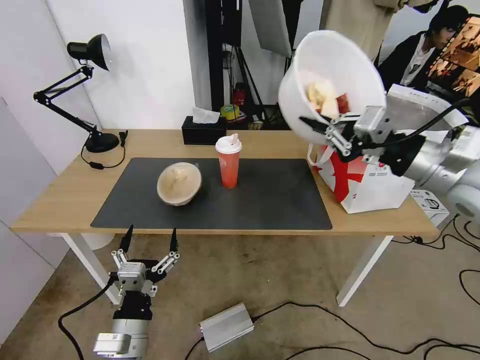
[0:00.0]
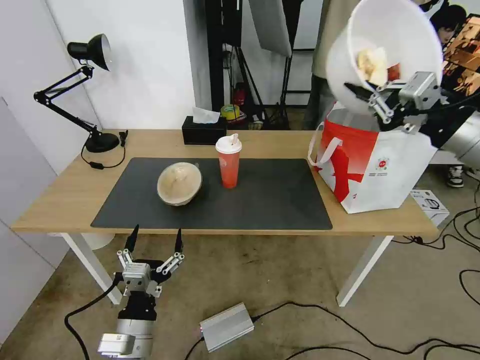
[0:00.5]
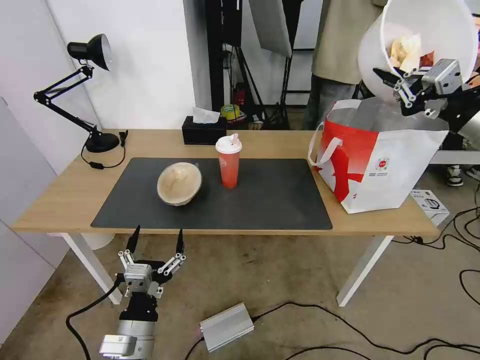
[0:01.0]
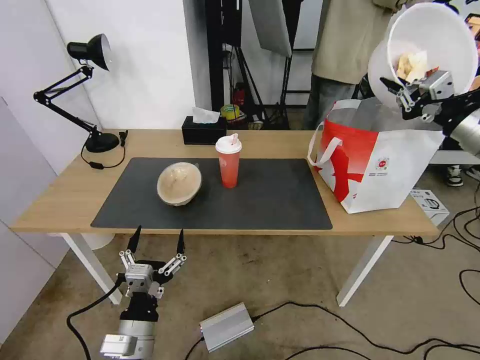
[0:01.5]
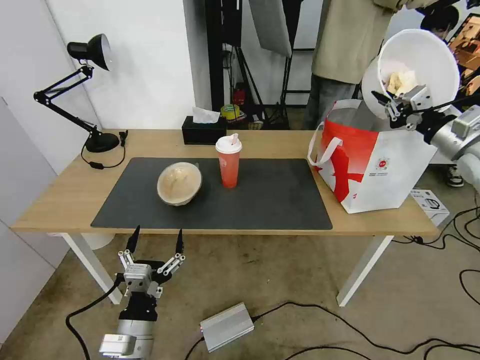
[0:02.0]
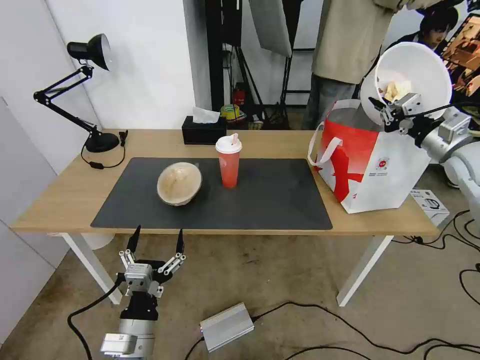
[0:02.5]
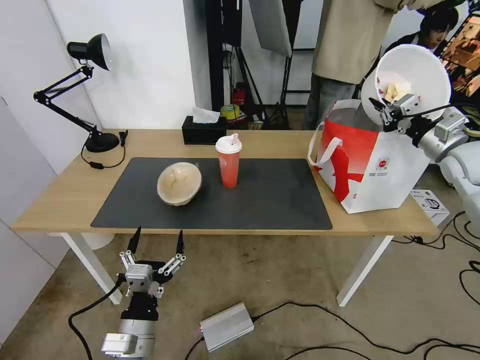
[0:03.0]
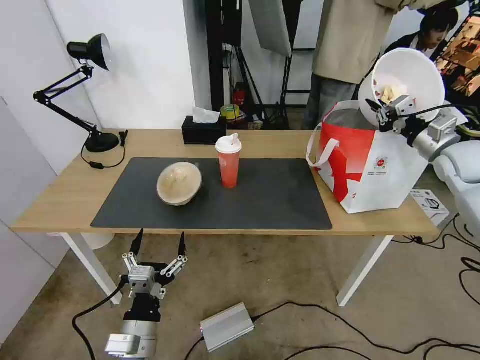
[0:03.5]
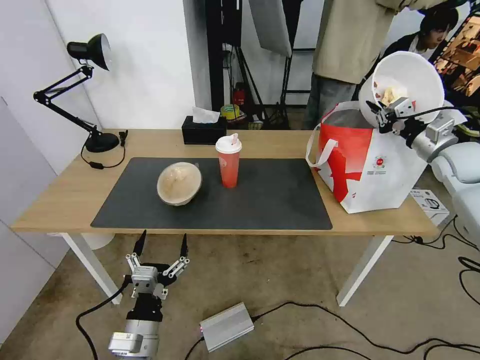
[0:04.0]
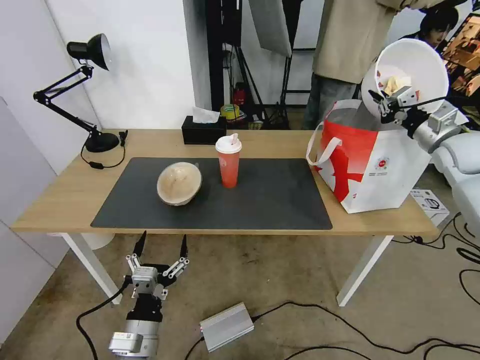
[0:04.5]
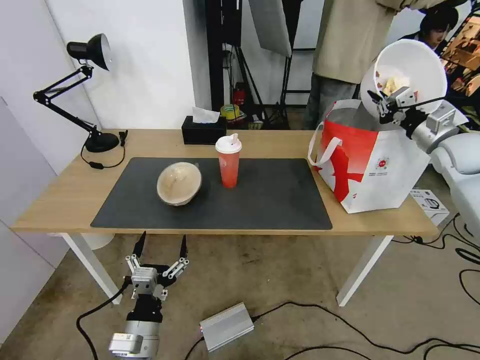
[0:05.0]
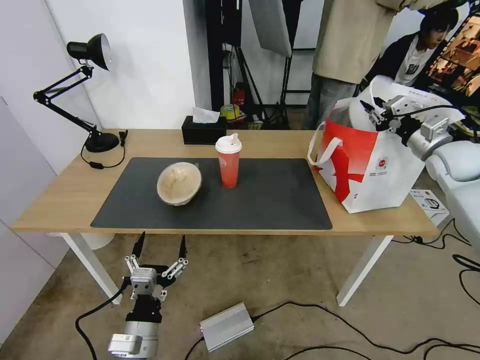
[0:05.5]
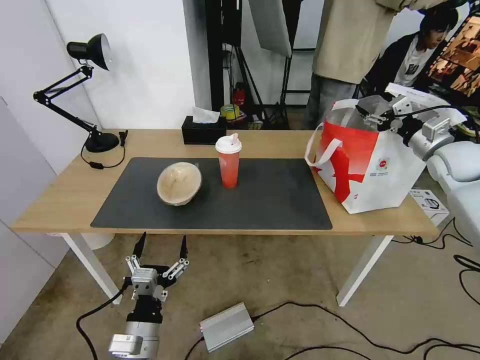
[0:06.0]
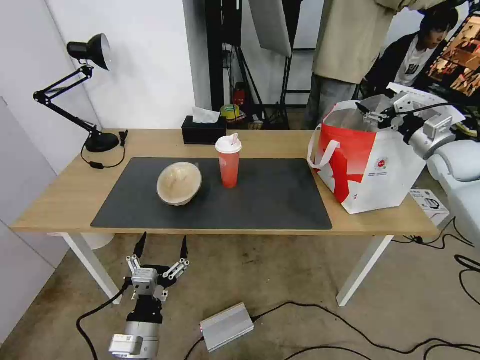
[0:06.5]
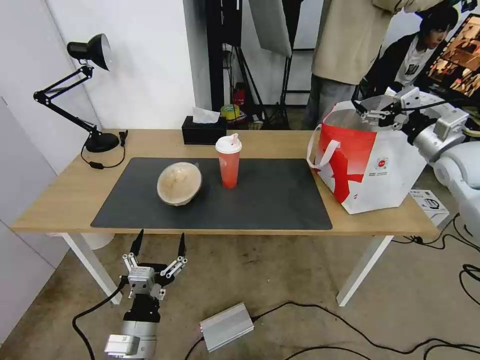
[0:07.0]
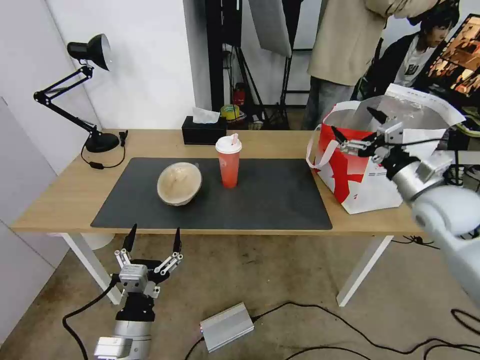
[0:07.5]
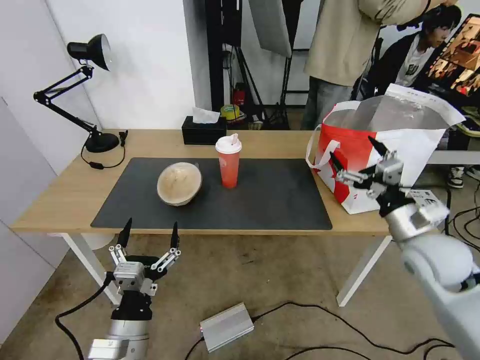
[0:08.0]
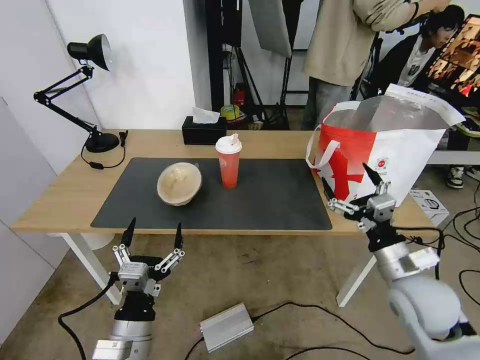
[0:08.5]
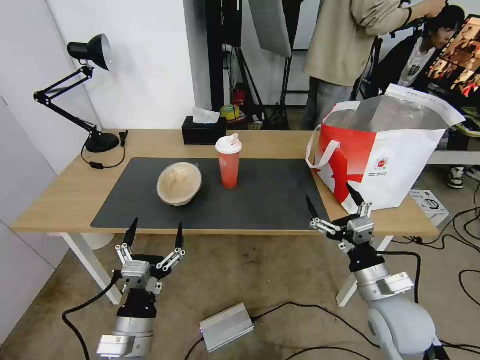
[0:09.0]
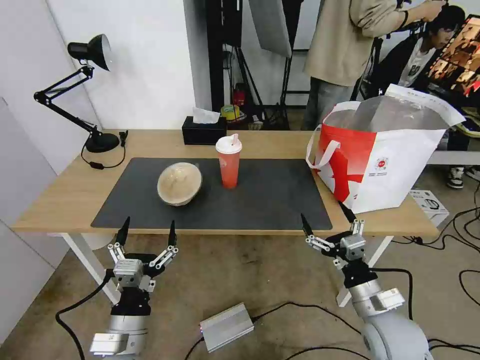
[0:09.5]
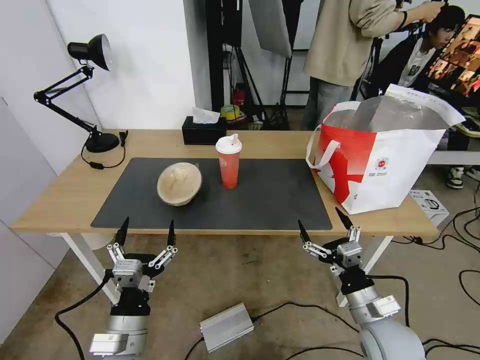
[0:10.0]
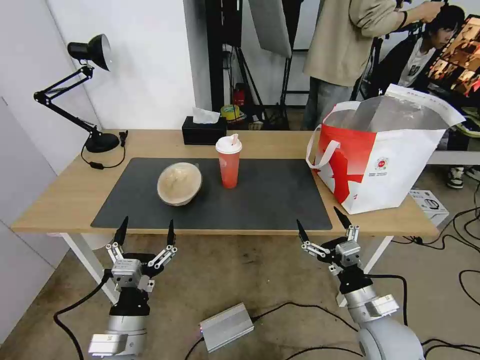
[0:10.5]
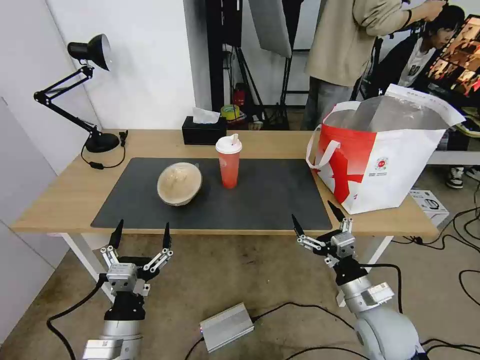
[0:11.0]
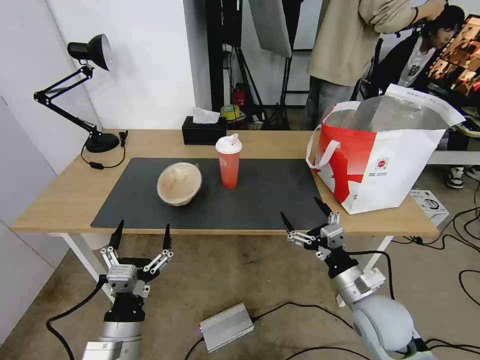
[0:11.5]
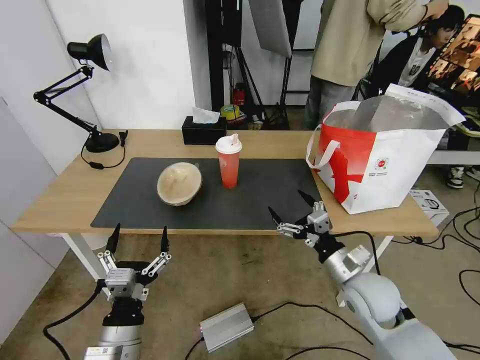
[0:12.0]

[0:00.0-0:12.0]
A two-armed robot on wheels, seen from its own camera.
Task of the whole recording: Pick up the trash from the table and place it into the takeout bag.
0:00.0 to 0:02.0: The right gripper moves to the right and forward, approximately 20 cm.
0:02.0 to 0:04.0: The right gripper is displaced forward by roughly 5 cm.
0:04.0 to 0:06.0: The right gripper opens up.
0:06.0 to 0:08.0: The right gripper is displaced backward, to the left and downward by roughly 25 cm.
0:08.0 to 0:10.0: The right gripper goes roughly 20 cm downward, backward and to the left.
0:10.0 to 0:12.0: The right gripper is displaced forward by some 10 cm.

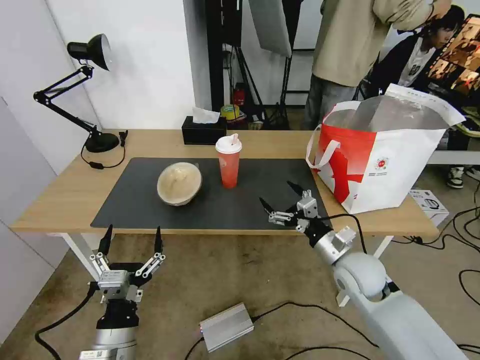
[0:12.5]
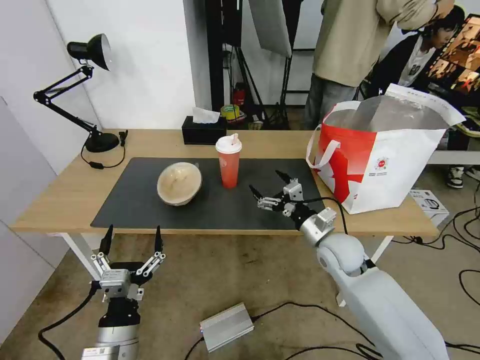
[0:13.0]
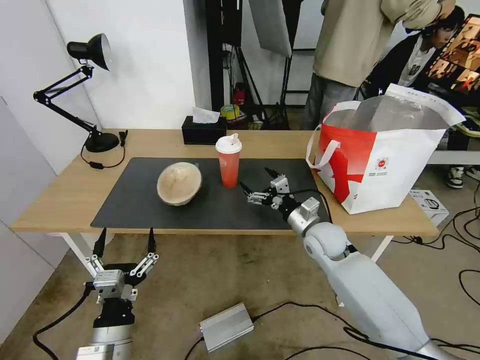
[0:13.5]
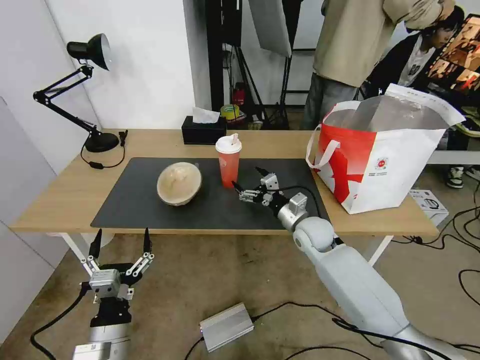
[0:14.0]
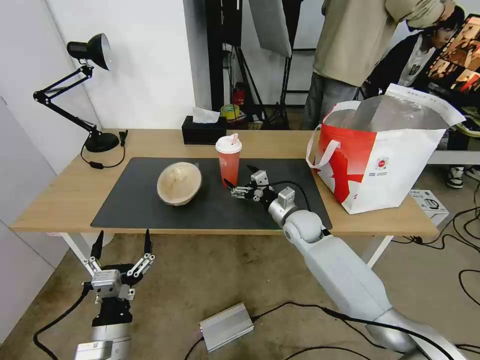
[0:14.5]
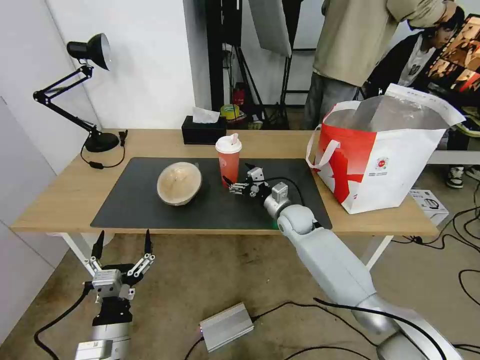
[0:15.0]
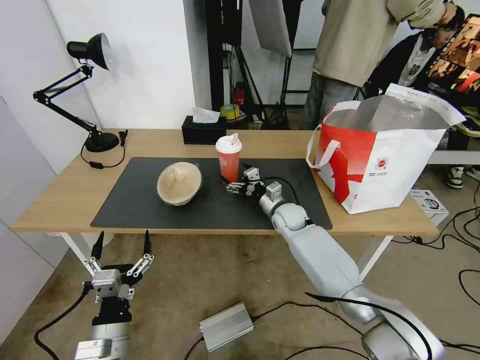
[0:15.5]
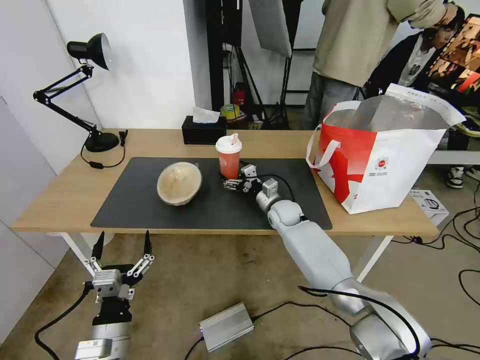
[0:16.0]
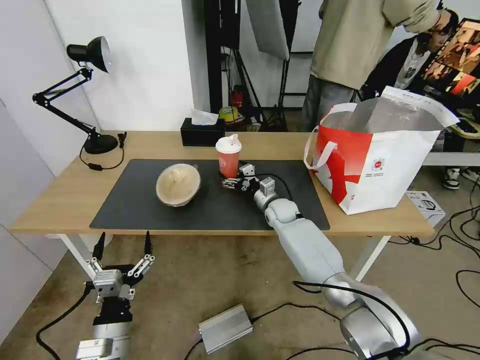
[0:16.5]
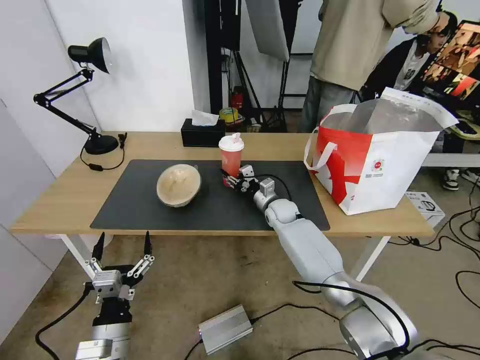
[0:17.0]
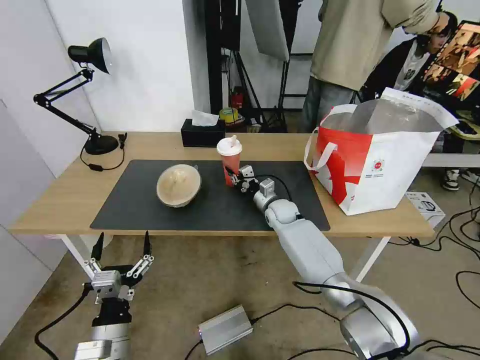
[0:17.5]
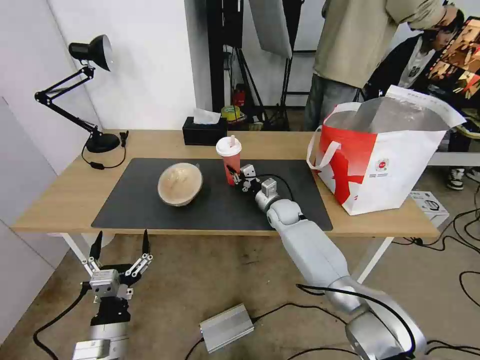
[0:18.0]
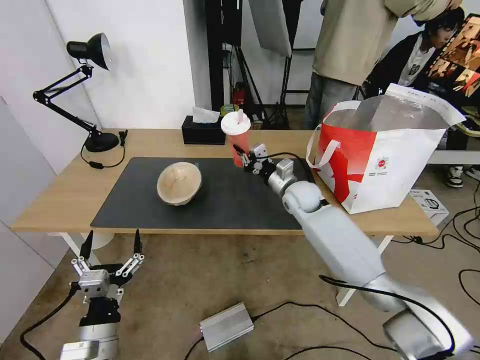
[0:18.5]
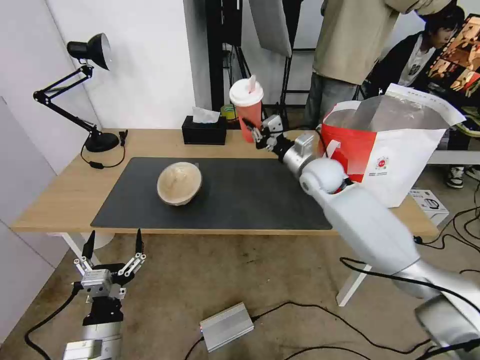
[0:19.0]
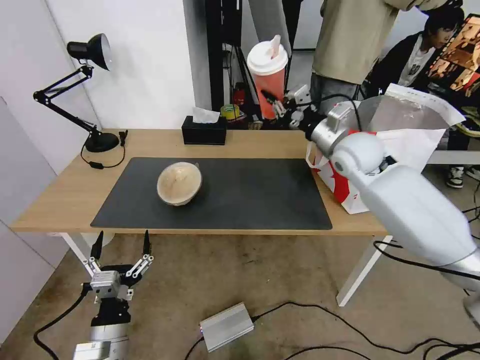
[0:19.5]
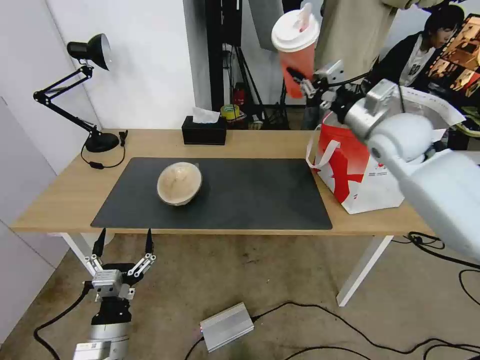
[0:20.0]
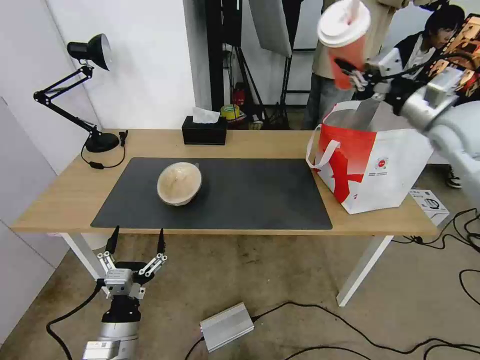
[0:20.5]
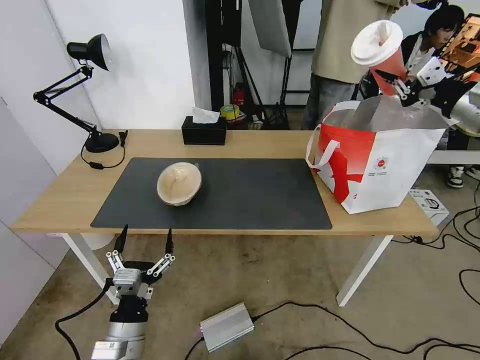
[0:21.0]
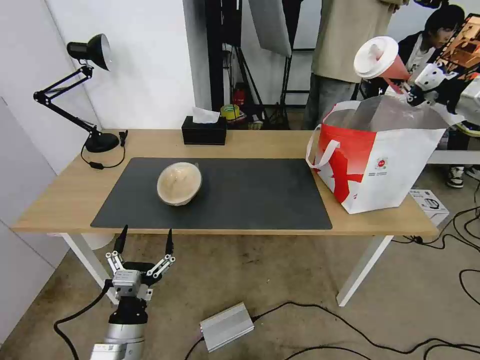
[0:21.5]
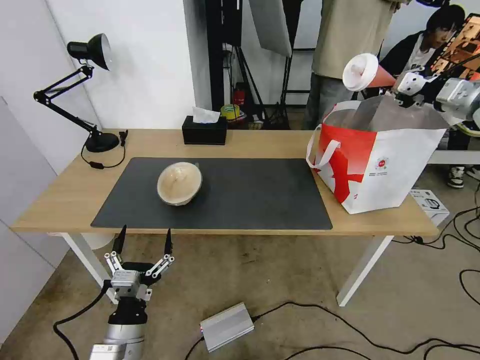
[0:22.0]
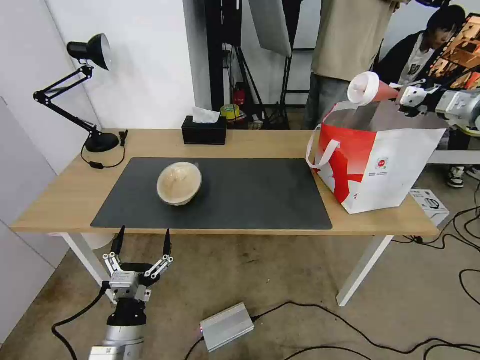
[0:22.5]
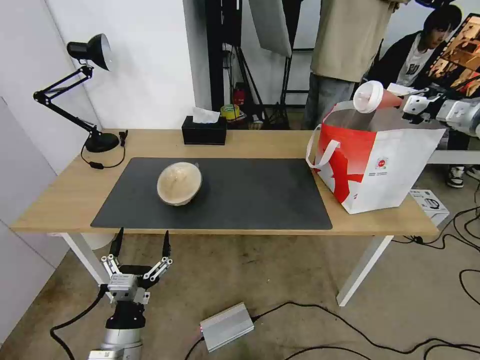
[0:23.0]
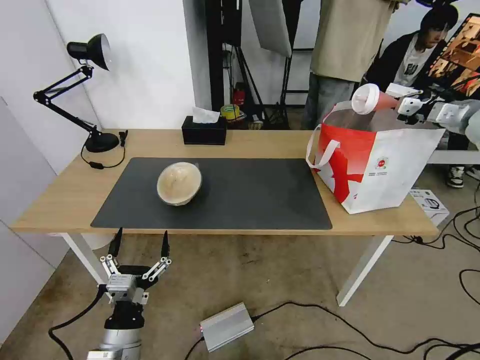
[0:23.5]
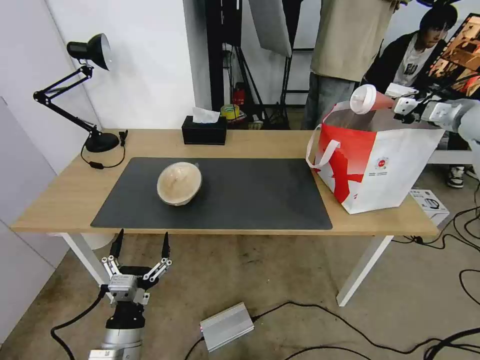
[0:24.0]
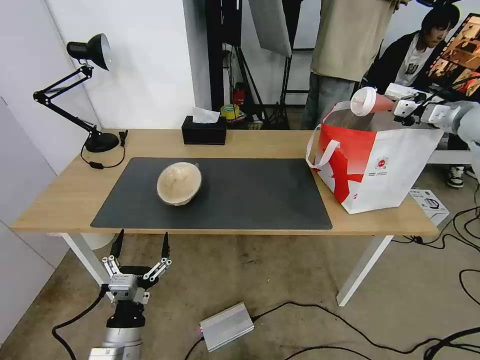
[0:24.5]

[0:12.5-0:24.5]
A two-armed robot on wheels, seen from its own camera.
Task of the whole recording: Pick up the trash from the table and place it into the takeout bag.
0:12.5 to 0:14.5: The right gripper heads forward and to the left, covering roughly 15 cm.
0:14.5 to 0:16.5: The right gripper heads forward, covering roughly 10 cm.
0:16.5 to 0:18.5: The right gripper travels upward by approximately 10 cm, and closes.
0:18.5 to 0:20.5: The right gripper heads upward and to the right, covering roughly 35 cm.
0:20.5 to 0:22.5: The right gripper shifts roughly 15 cm to the right.
0:22.5 to 0:24.5: The right gripper changes place by approximately 5 cm.

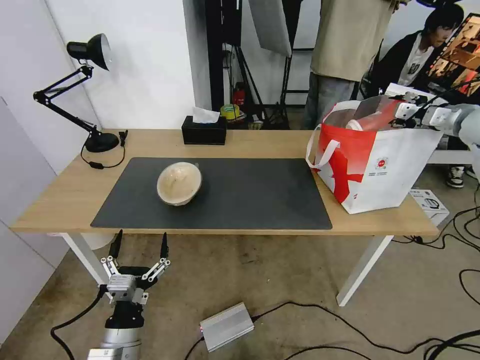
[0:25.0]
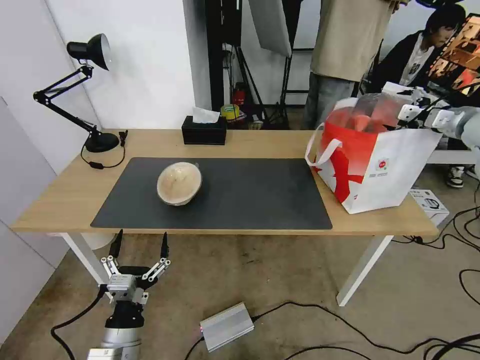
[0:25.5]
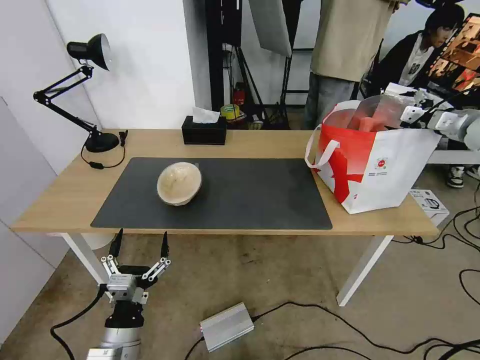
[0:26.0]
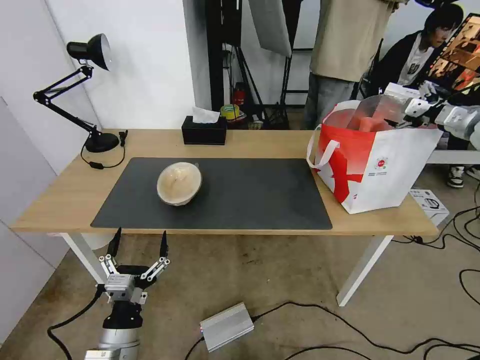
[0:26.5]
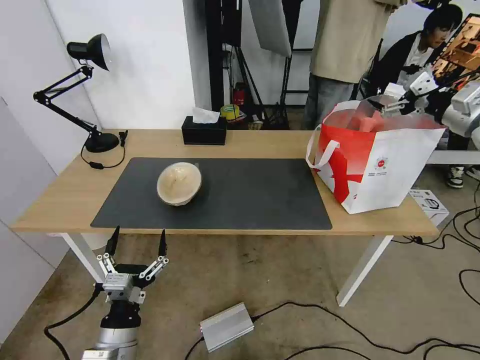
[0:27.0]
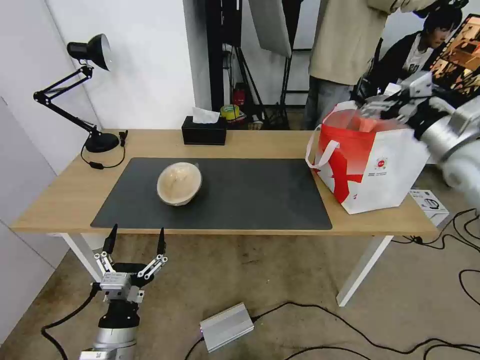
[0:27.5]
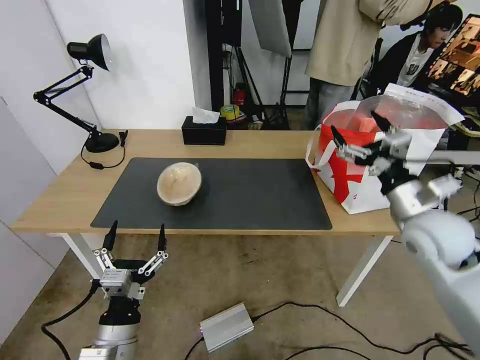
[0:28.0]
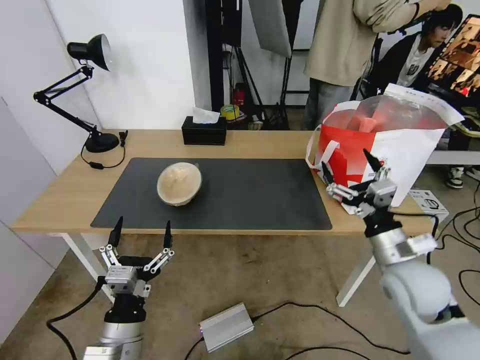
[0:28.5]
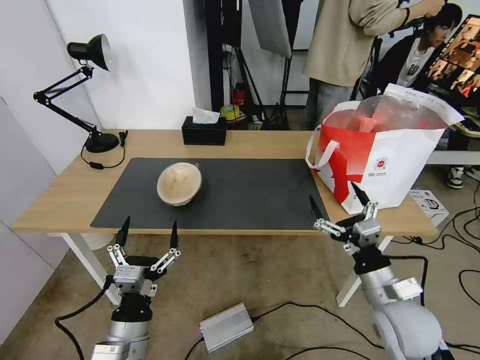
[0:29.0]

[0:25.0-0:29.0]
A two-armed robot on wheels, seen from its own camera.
Task of the whole recording: Pick up the trash from the table and place it into the takeout bag.
0:25.0 to 0:27.0: The right gripper heads backward and to the left, covering roughly 10 cm, and opens its fingers.
0:27.0 to 0:29.0: The right gripper goes roughly 40 cm downward, backward and to the left.
